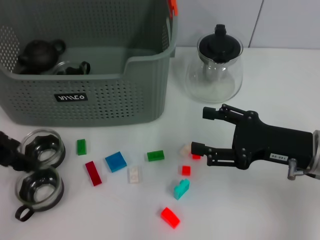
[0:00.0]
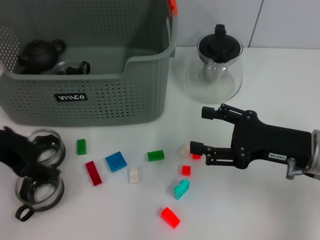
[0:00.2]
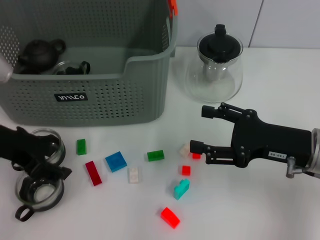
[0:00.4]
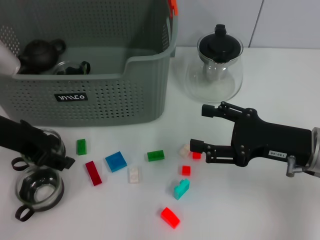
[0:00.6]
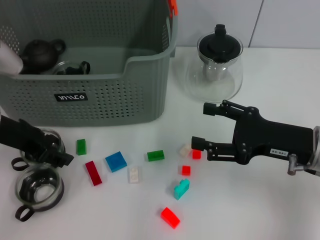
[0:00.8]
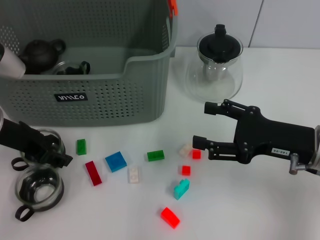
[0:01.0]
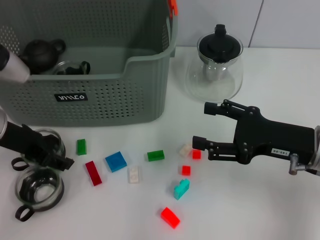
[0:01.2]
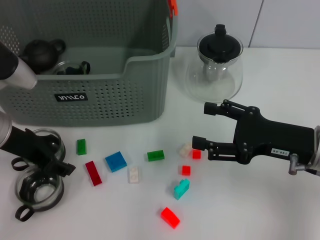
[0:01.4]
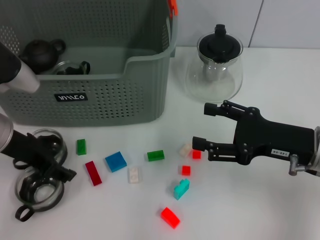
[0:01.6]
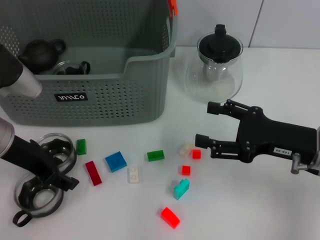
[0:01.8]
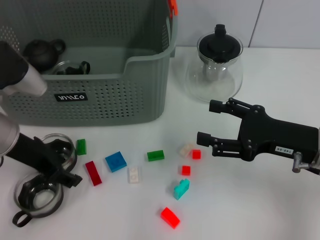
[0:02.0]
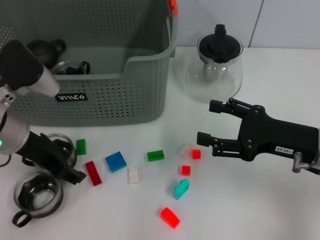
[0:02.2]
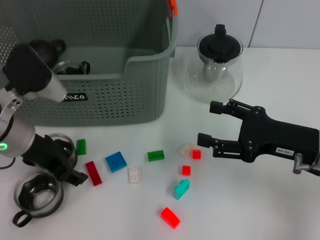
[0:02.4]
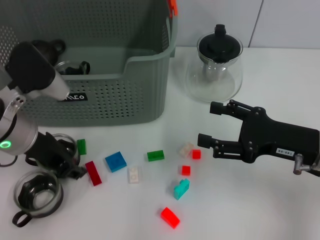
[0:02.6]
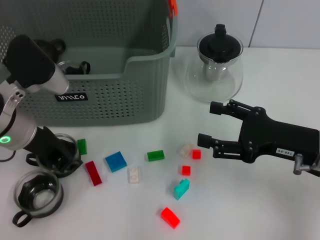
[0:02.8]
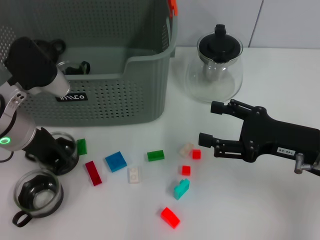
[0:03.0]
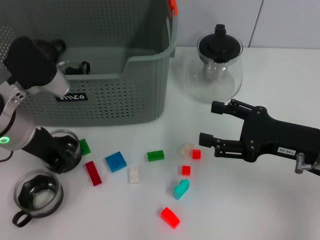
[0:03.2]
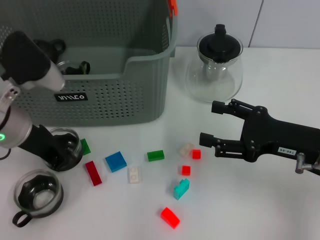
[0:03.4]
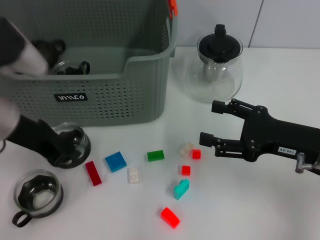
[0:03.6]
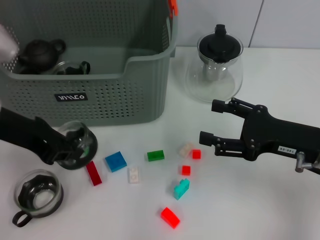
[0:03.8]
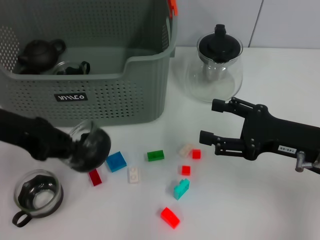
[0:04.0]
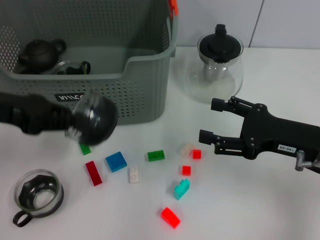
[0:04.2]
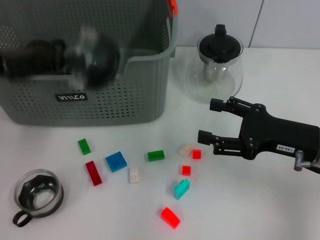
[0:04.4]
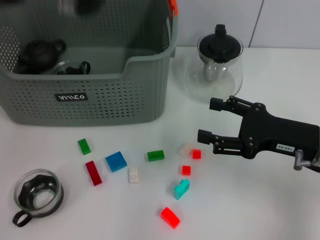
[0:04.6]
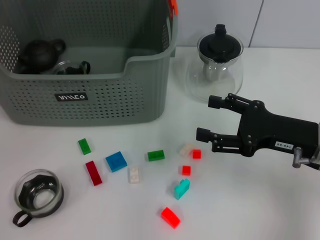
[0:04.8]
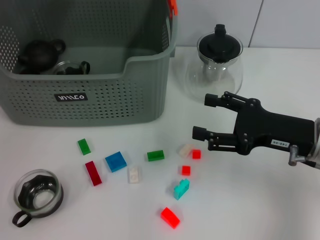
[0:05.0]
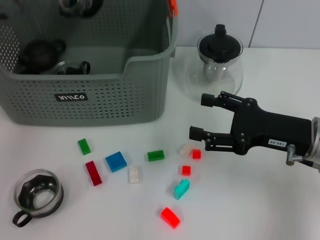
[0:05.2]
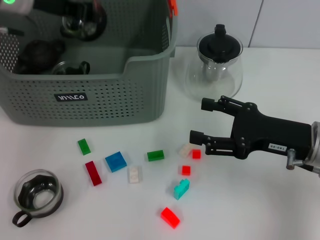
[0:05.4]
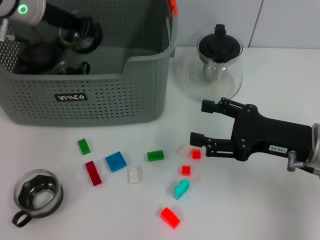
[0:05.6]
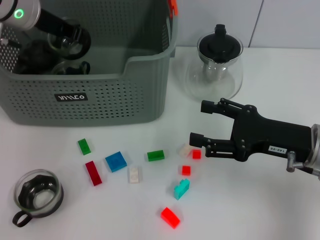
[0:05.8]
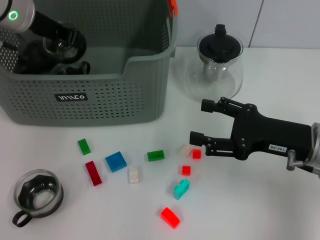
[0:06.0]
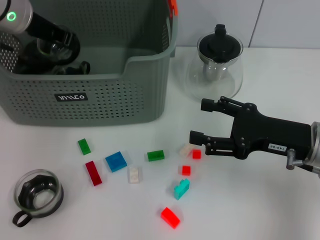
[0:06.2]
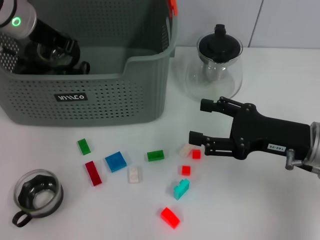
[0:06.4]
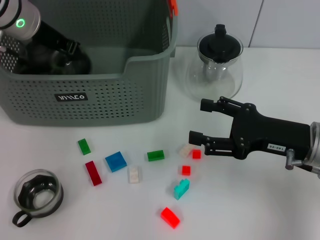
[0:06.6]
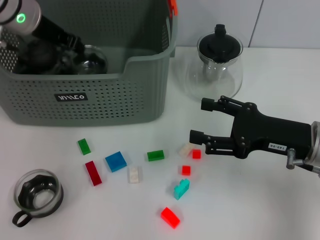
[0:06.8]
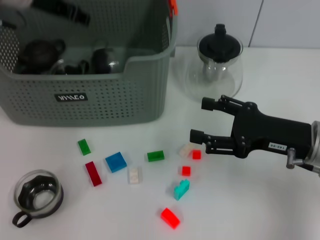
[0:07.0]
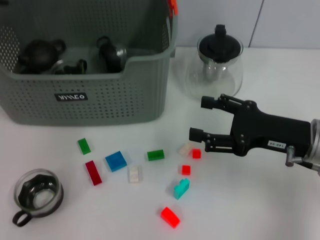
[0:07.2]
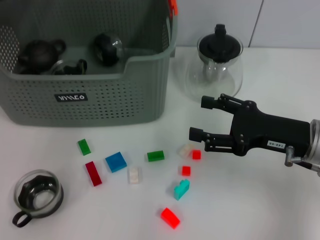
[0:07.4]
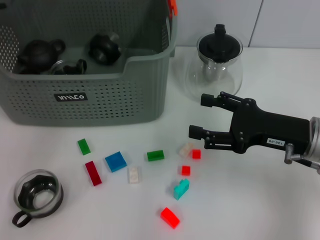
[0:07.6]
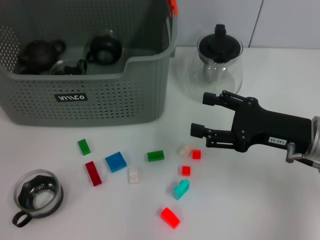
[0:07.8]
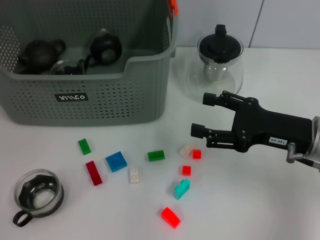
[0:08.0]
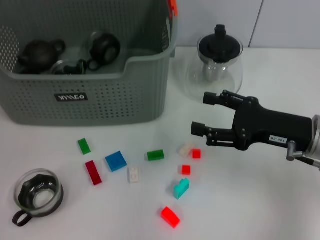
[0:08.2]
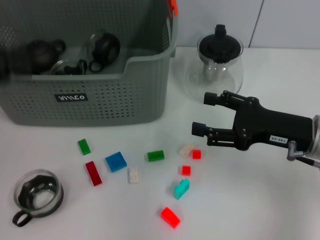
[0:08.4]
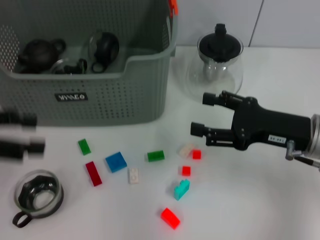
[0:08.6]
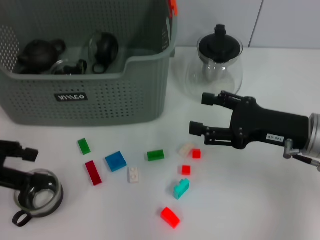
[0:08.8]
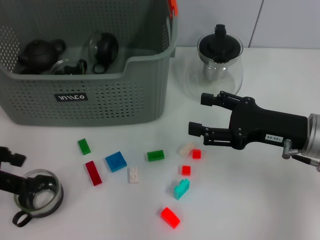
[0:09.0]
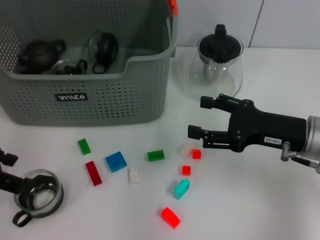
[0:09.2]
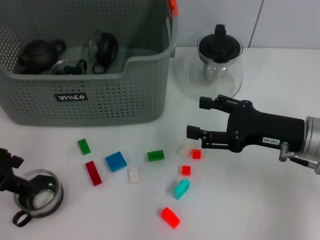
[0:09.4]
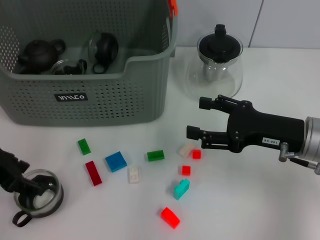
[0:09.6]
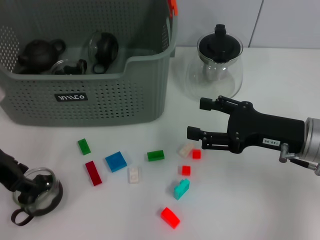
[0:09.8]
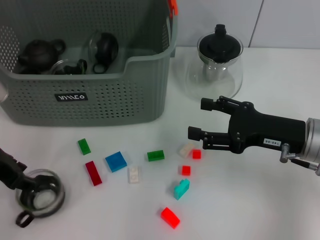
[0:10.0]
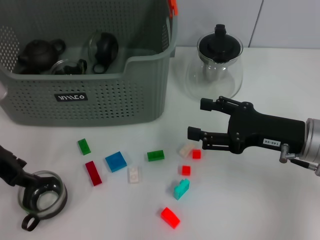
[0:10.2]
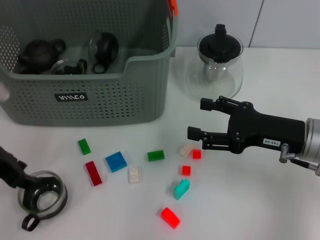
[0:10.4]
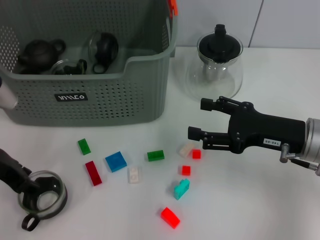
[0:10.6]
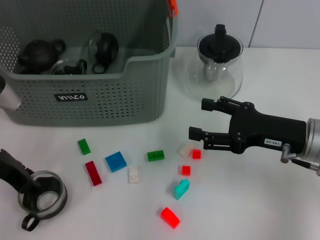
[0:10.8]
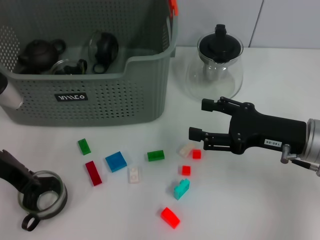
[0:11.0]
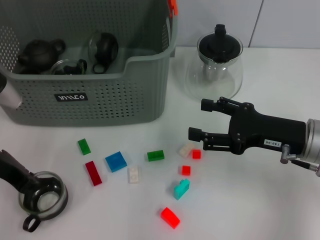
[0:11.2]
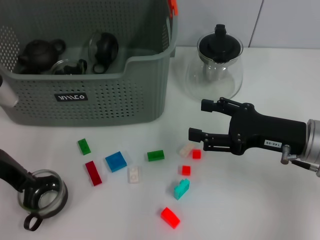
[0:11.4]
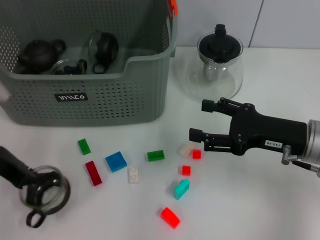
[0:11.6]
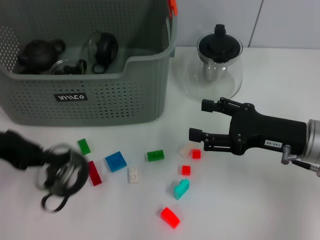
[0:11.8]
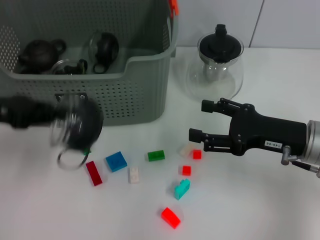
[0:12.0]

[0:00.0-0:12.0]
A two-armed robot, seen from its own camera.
Task of the whole recording: pick up the teacup on the table and place it into the storage bin, pick up the block on the table and place it into the storage bin.
Step, 0.0 to 3.4 s: Grasp the cup with left gripper.
Step, 3.6 to 7.8 s: Place the cup in the storage box with left gripper.
Step, 8.2 to 10.2 s: Grasp the cup with left gripper.
0.0 to 1.6 s: The left gripper moves downward, approximately 5 cm.
1.6 to 3.0 s: The left gripper closes up.
3.0 to 4.4 s: The left gripper moves to the left and upward, roughly 10 cm, and closes up.
4.4 to 6.0 s: The left gripper is displaced forward and to the right by some 15 cm.
6.0 to 7.6 s: The left gripper shifts approximately 10 cm upward and backward, and opens its fingers.
7.6 to 9.0 s: The left gripper travels backward, to the left and downward by approximately 20 cm, and opens up.
9.0 to 10.4 s: The left gripper goes approximately 5 cm to the right.
10.4 to 12.0 s: The left gripper closes.

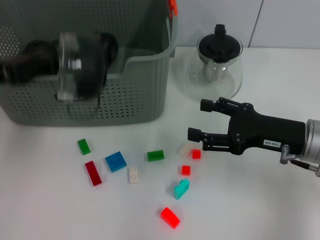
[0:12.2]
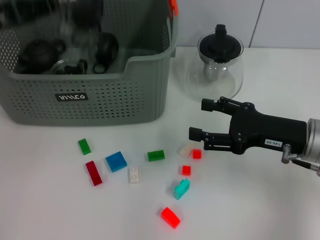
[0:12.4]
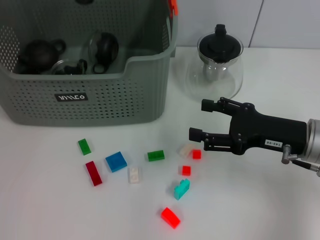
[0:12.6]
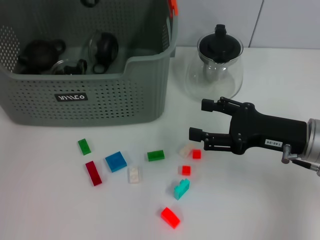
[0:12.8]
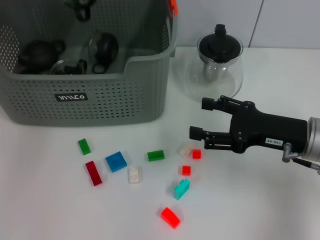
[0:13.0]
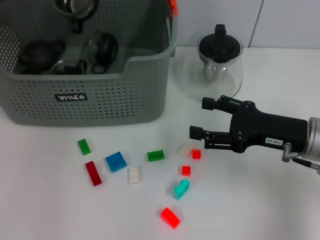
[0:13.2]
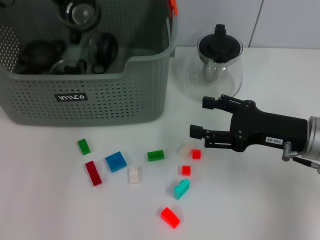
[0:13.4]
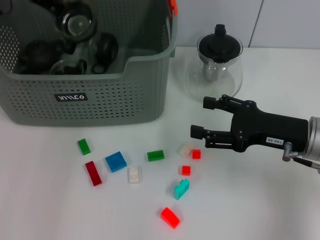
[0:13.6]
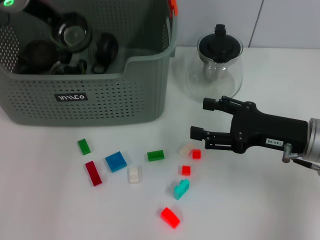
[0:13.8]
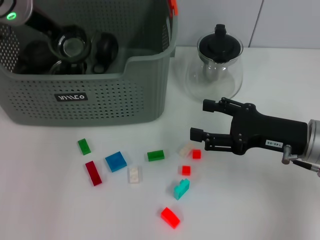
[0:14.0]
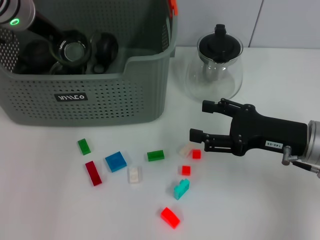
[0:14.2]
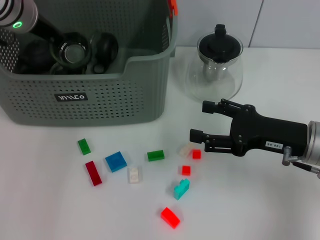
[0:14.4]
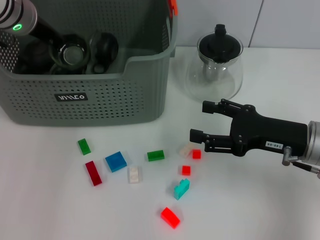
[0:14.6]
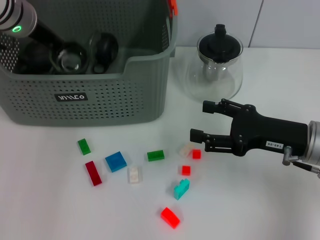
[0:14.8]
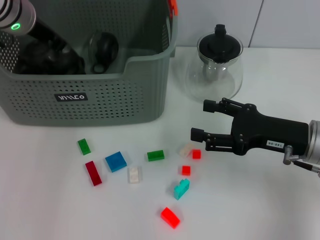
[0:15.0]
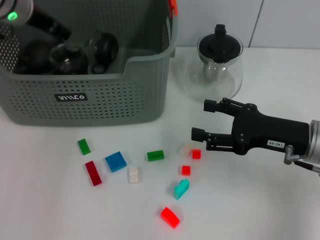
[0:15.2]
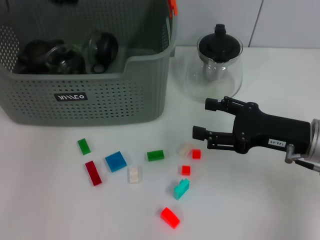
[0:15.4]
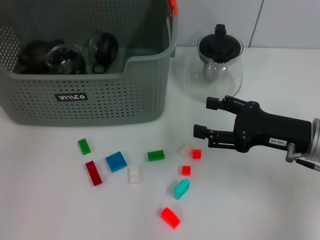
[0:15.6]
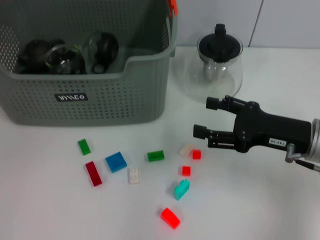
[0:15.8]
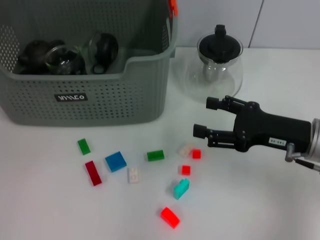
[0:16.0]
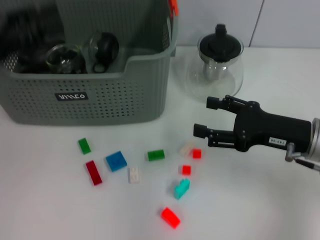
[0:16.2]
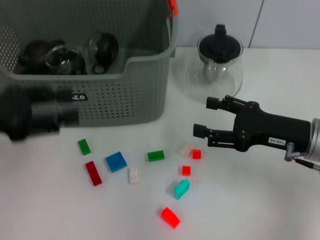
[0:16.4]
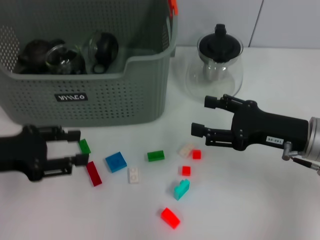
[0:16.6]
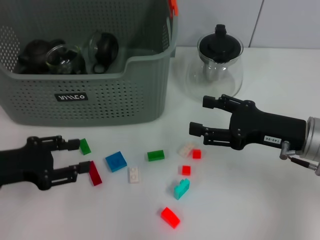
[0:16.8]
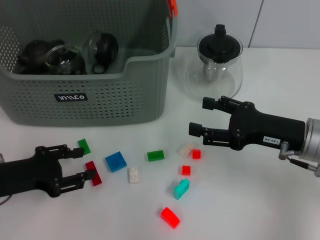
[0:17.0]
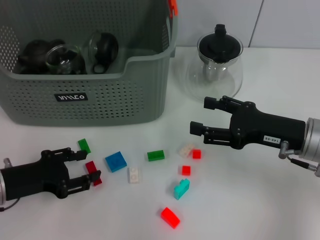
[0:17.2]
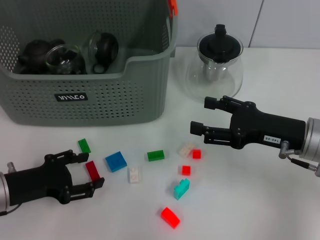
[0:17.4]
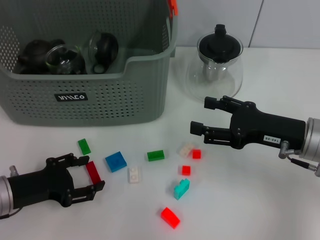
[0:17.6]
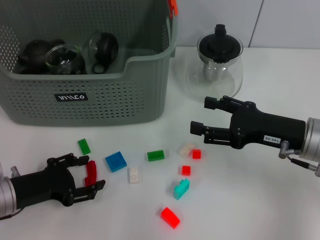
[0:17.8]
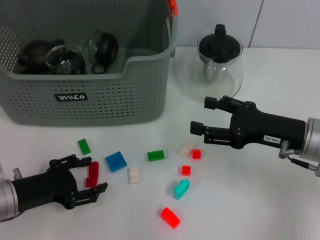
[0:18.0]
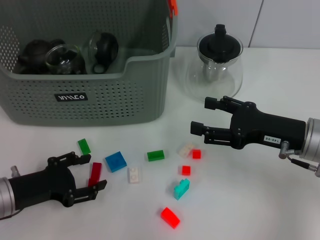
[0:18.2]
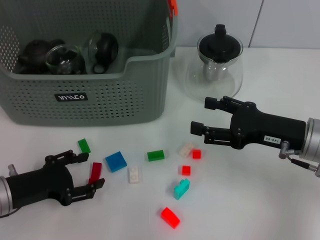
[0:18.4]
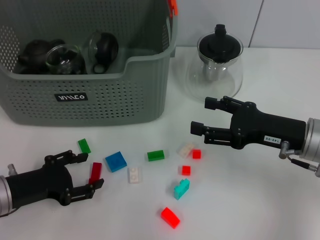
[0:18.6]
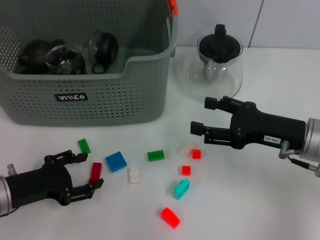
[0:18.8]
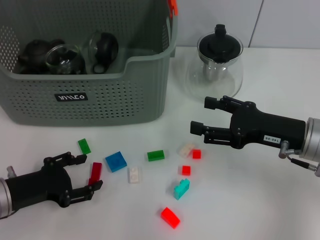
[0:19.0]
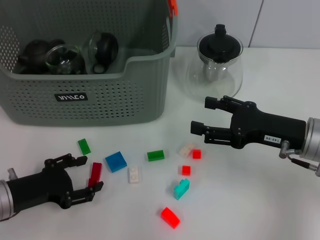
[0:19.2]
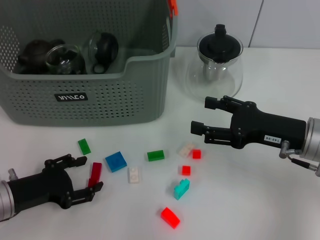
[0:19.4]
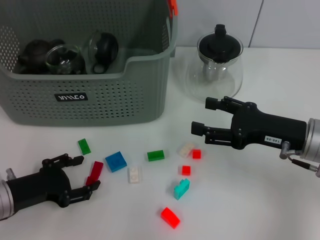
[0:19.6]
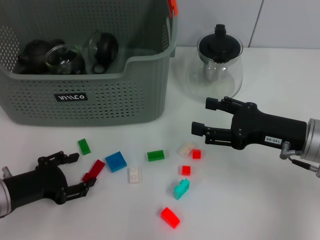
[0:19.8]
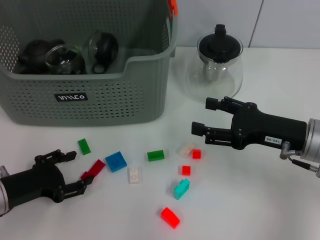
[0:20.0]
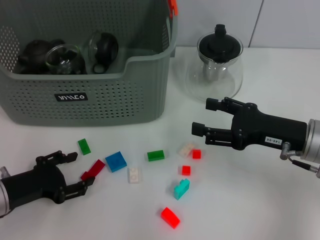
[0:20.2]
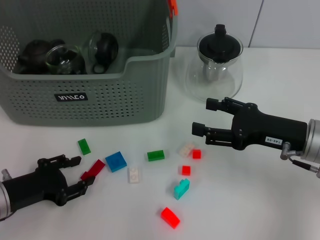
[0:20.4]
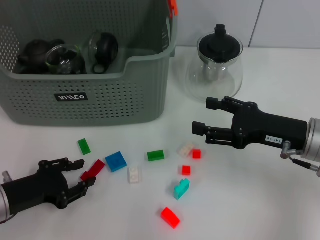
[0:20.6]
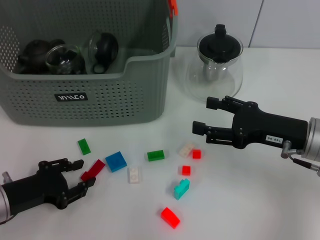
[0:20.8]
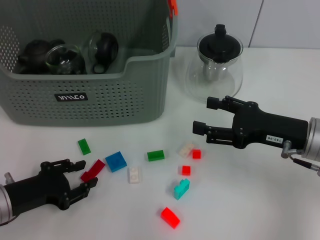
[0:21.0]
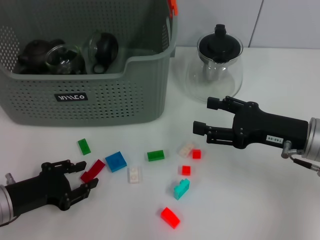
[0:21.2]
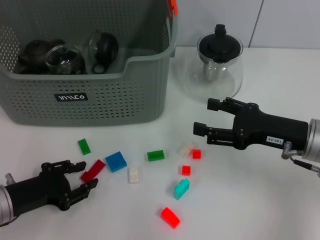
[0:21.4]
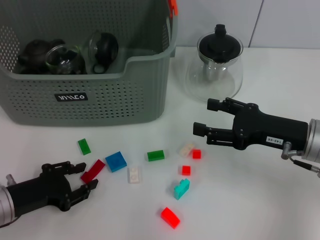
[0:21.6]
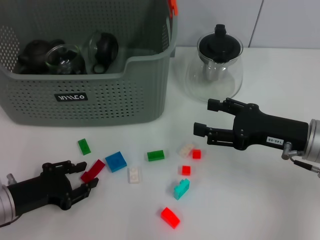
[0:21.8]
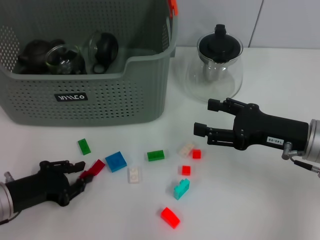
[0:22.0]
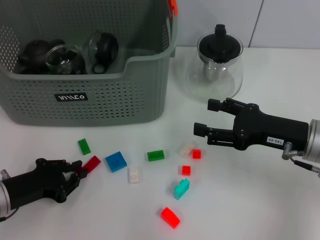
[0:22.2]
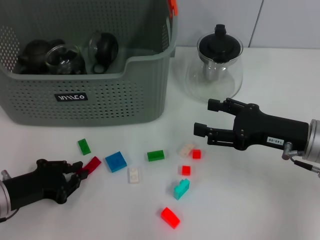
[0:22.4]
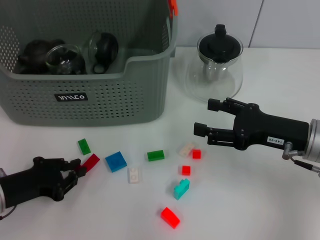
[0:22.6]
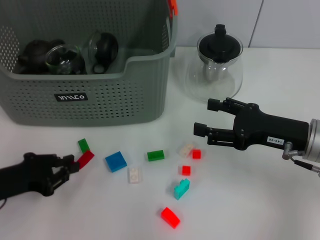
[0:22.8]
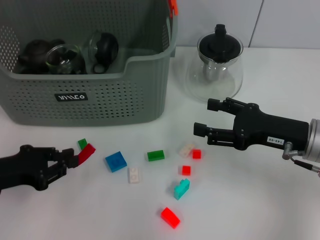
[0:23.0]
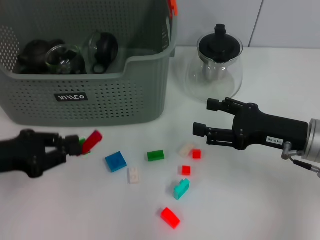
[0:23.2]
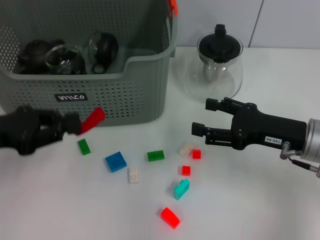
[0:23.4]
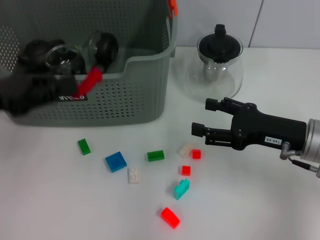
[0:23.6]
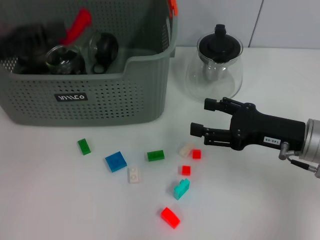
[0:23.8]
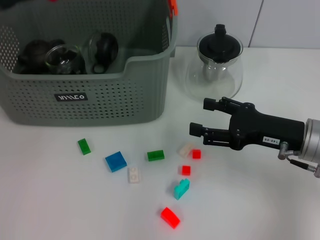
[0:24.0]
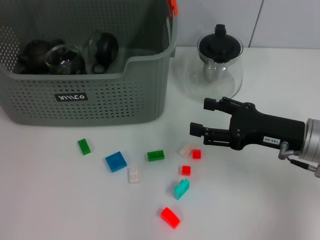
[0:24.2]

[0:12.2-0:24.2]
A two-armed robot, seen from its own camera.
Task of the whole recording: pick up the teacup on the table and place it into the storage bin, pick up the block on the table and place it into the storage bin.
Step, 12.2 to 16.0 s: Place the cup in the storage box with left gripper.
Step, 16.4 to 22.4 s: Grasp the red block with left gripper.
12.2 to 13.8 s: The left gripper moves forward, to the right and upward, about 15 cm.
13.8 to 15.2 s: The grippers make only small movements.
15.2 to 16.6 s: The left gripper goes roughly 25 cm backward, downward and to the left, and opens up.
16.6 to 18.2 s: The left gripper shifts approximately 10 cm downward.
18.2 to 19.8 s: There are only small adjustments of the grippers.
19.8 to 21.2 s: Both grippers stay put.
21.2 to 22.6 s: The left gripper closes up.
22.6 to 24.2 s: The left gripper heads upward and forward, covering some 25 cm.
